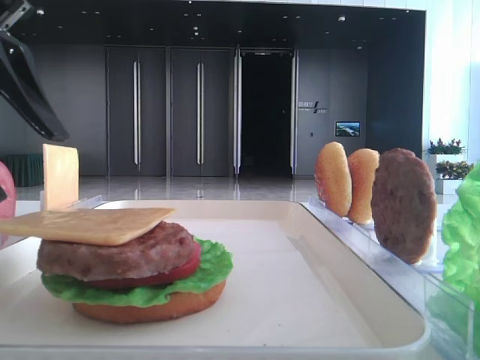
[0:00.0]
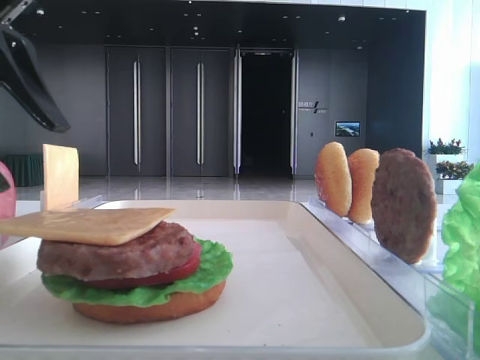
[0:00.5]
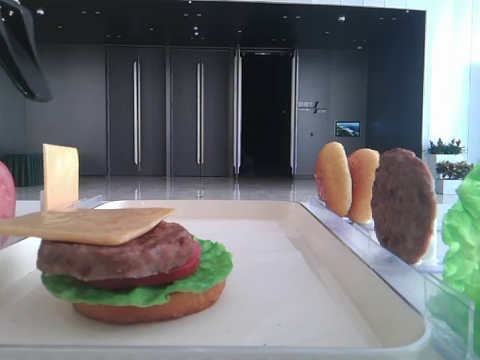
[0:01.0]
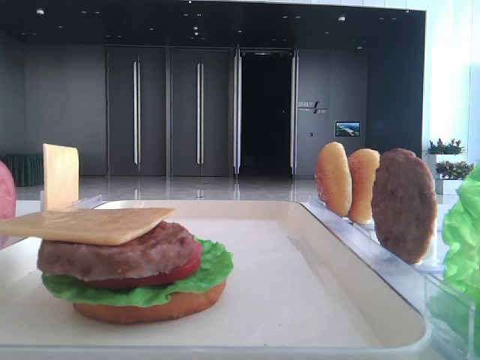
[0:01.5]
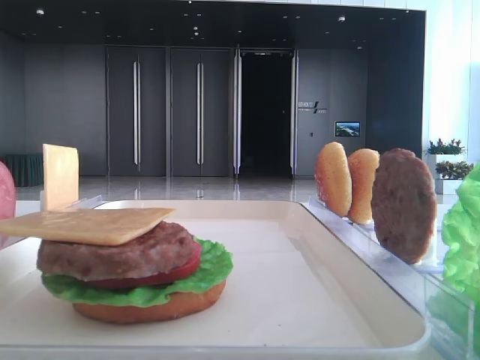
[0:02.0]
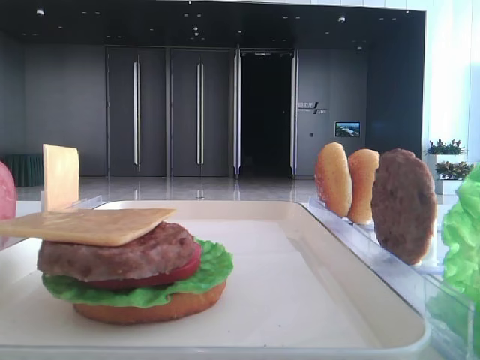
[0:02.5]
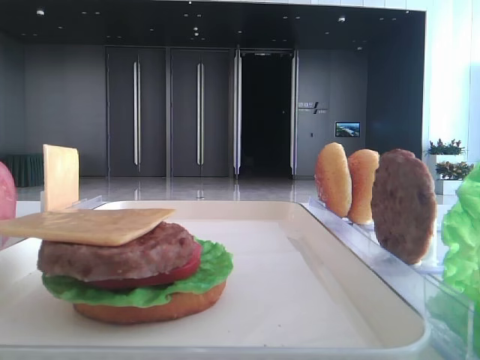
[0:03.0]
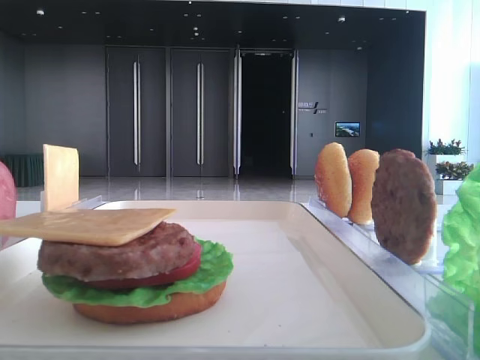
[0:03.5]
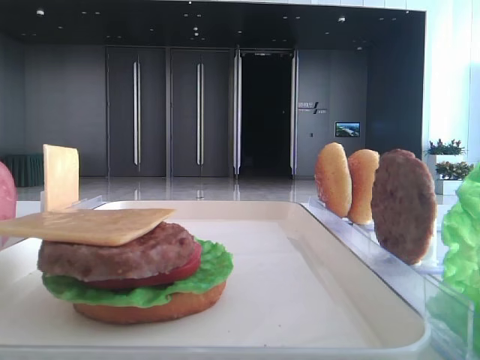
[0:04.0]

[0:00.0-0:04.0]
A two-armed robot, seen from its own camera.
0:00.0 to 0:02.0: The left gripper moves upward and to the left, about 20 cm.

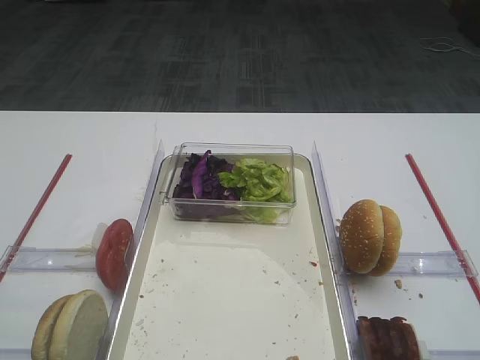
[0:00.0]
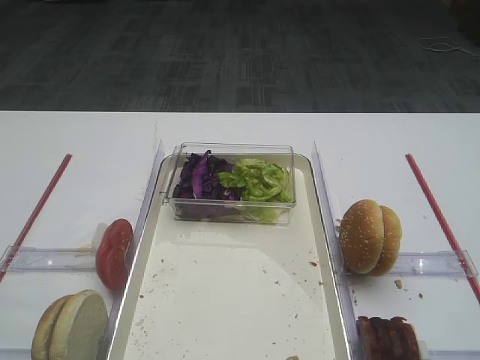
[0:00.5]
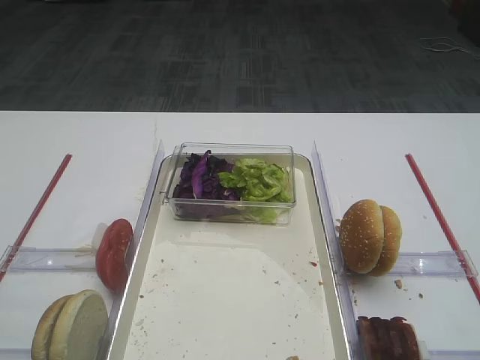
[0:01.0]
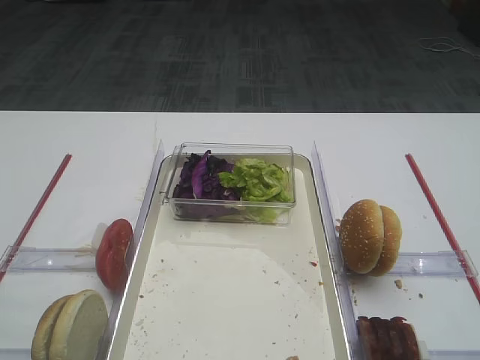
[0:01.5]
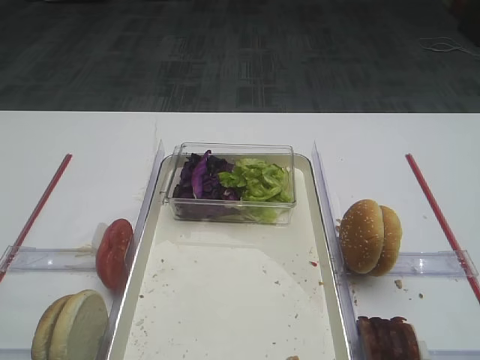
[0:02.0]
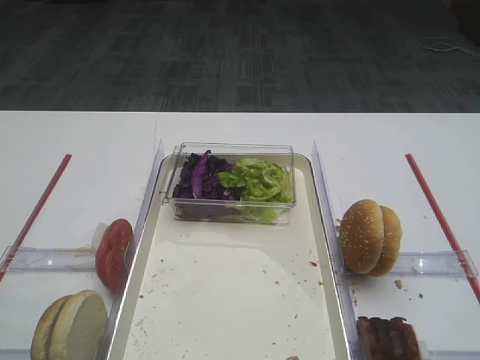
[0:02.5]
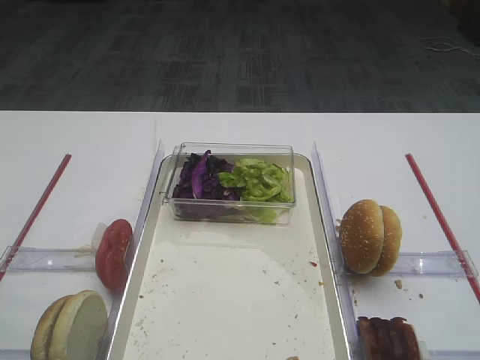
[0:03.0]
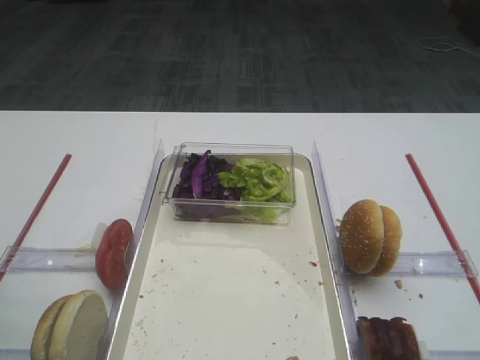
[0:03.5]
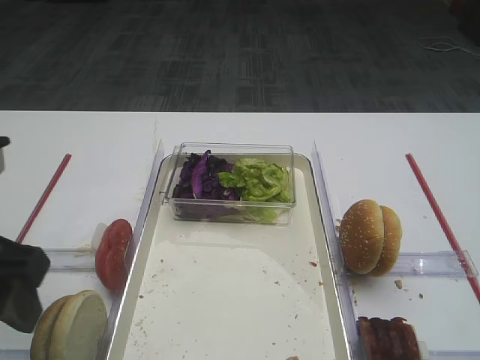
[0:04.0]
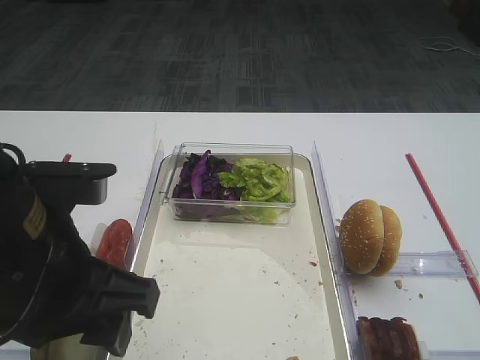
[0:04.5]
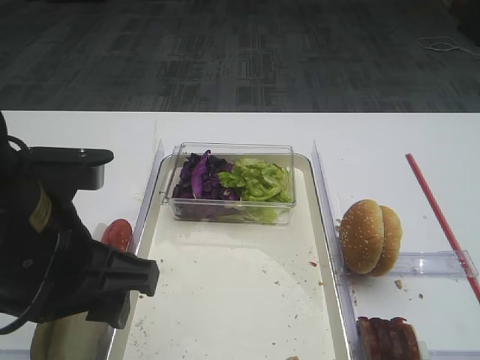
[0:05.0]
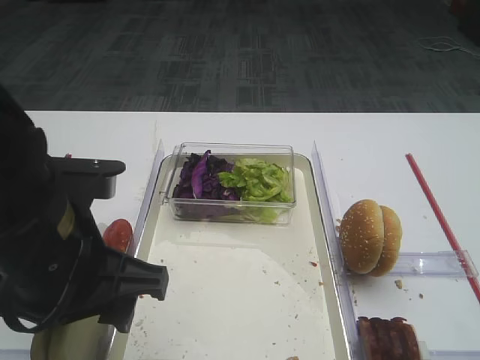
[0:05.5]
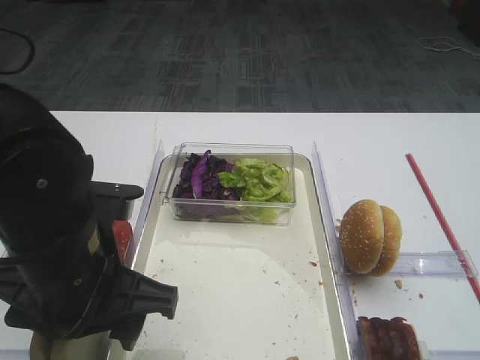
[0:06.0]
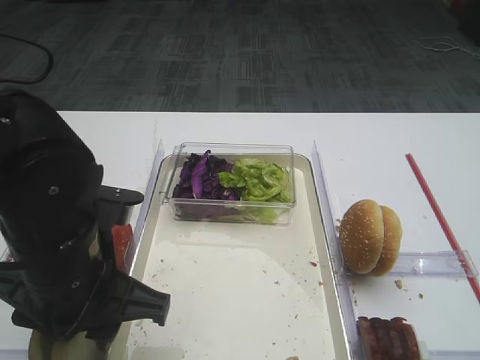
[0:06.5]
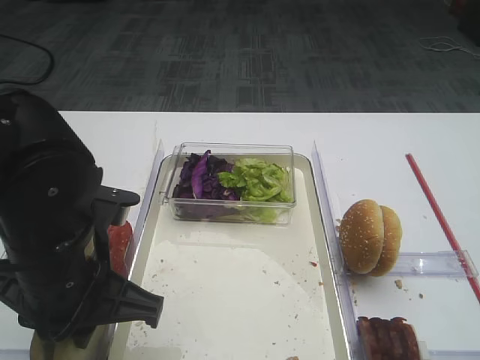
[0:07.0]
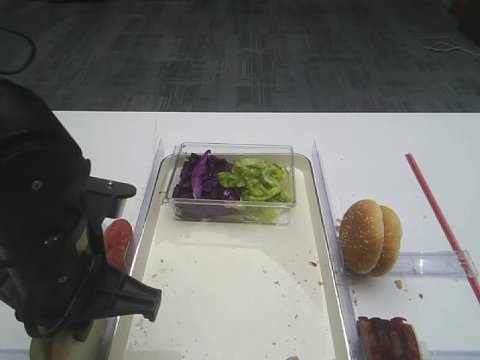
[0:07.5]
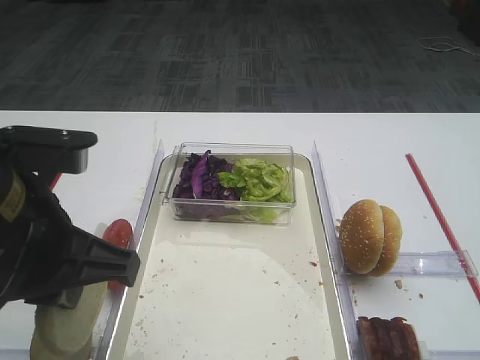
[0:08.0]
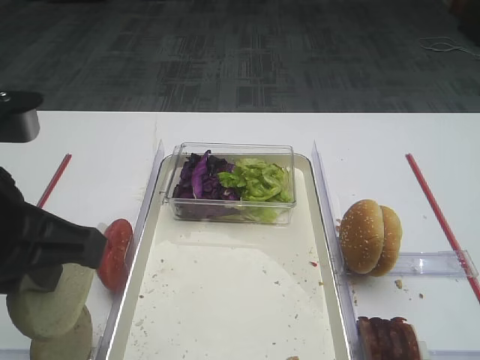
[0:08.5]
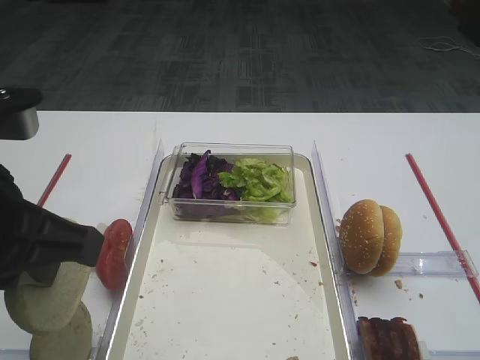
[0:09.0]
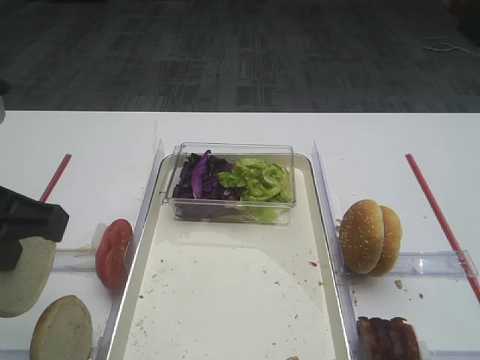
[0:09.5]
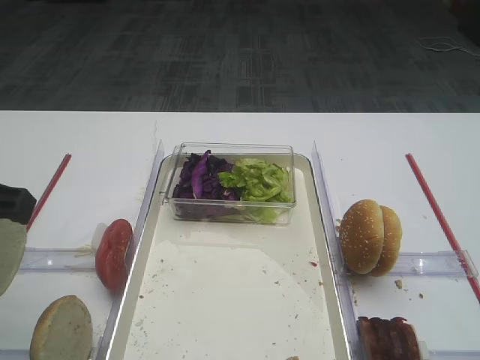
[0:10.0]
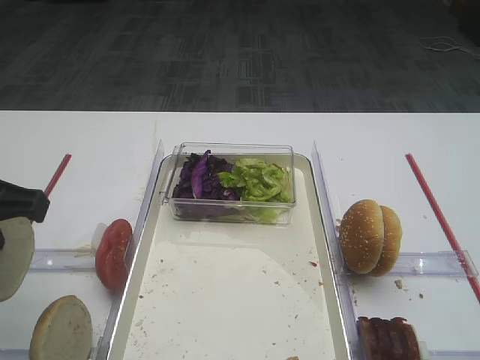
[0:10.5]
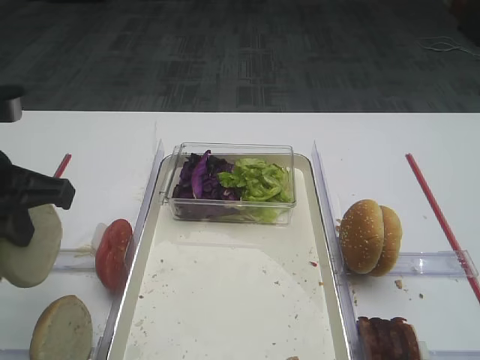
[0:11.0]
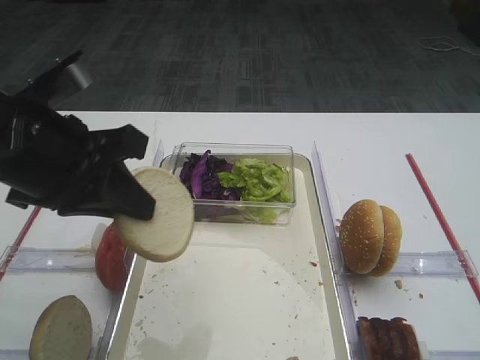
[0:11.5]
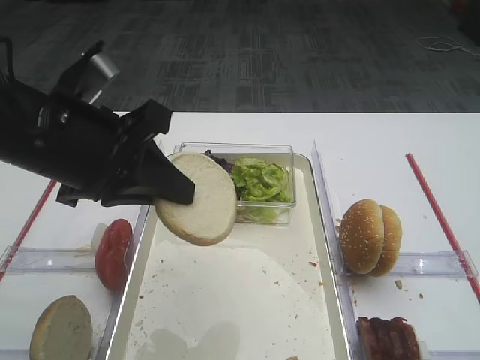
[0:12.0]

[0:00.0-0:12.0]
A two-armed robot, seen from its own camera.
Step, 0:00.0 to 0:08.5: Pick up the bread slice with the left gripper.
0:02.0 to 0:04.0: The left gripper heads forward and to the right, covering about 15 cm.
0:04.0 to 0:06.0: The left gripper goes roughly 10 cm to the right and downward.
0:06.0 to 0:08.0: The left gripper goes approximately 5 cm upward, and closes.
0:08.0 to 0:10.0: The left gripper heads to the left, covering approximately 10 cm.
0:10.0 to 0:12.0: The left gripper travels to the right and forward by roughly 10 cm.

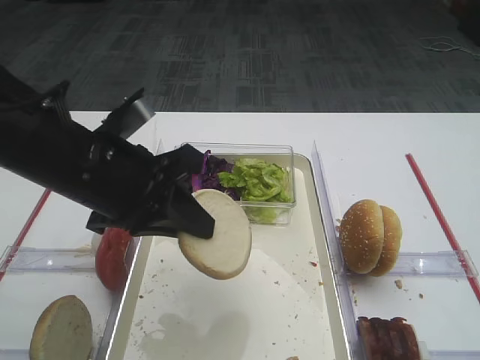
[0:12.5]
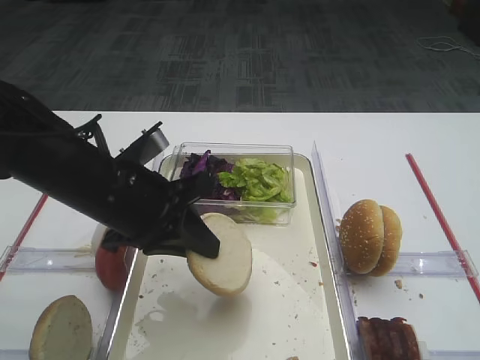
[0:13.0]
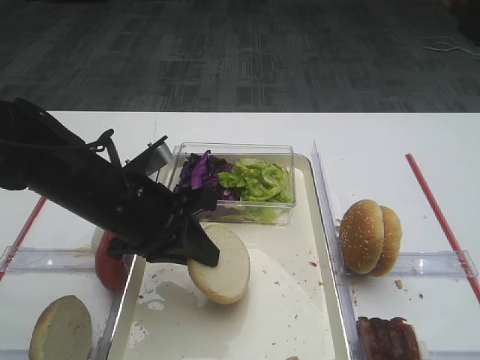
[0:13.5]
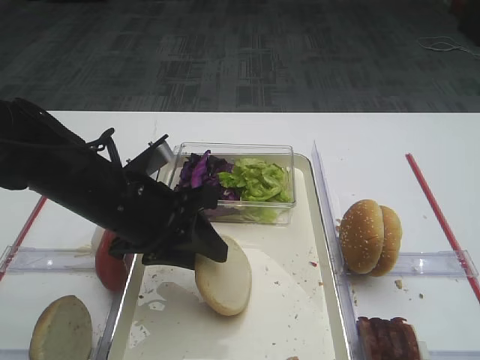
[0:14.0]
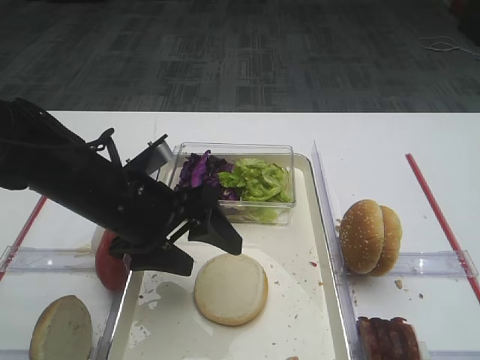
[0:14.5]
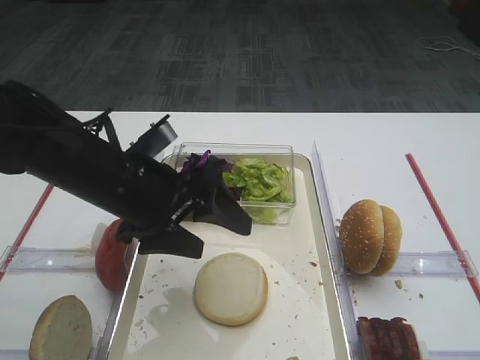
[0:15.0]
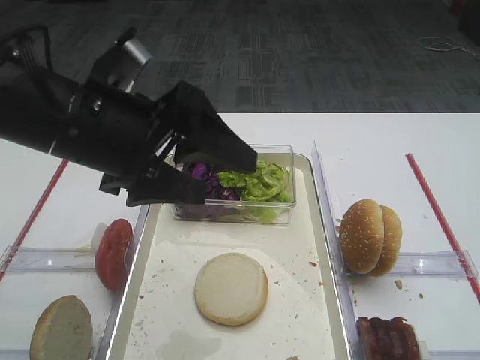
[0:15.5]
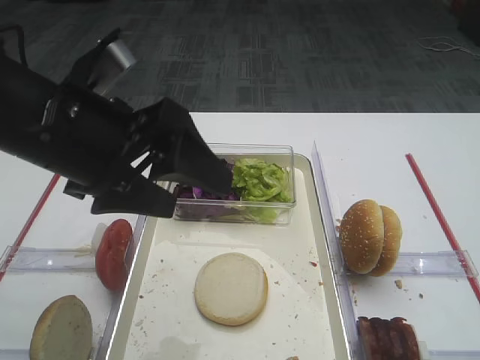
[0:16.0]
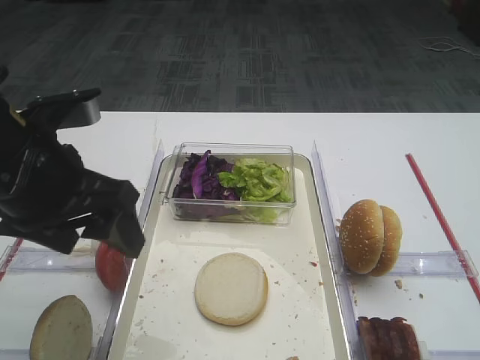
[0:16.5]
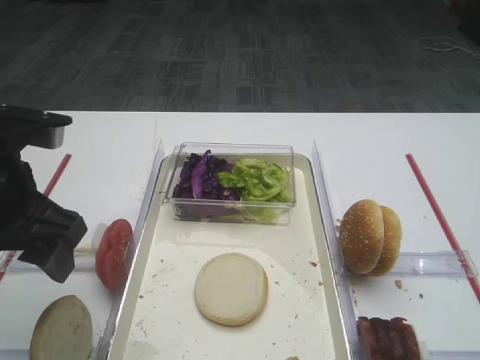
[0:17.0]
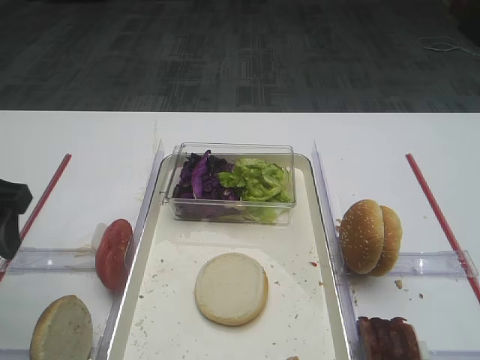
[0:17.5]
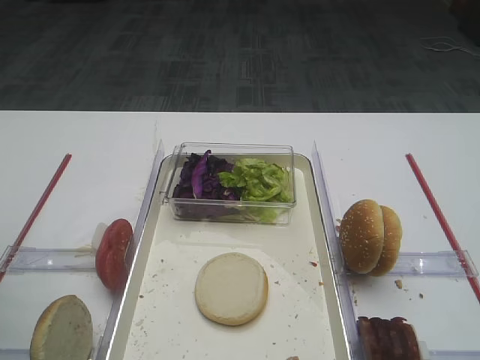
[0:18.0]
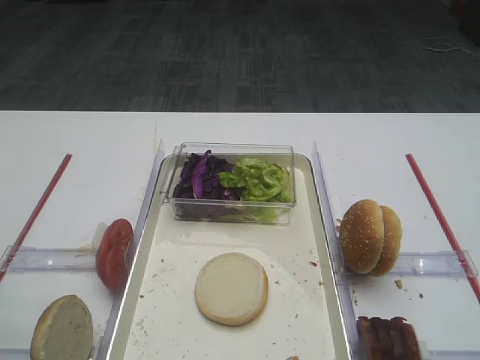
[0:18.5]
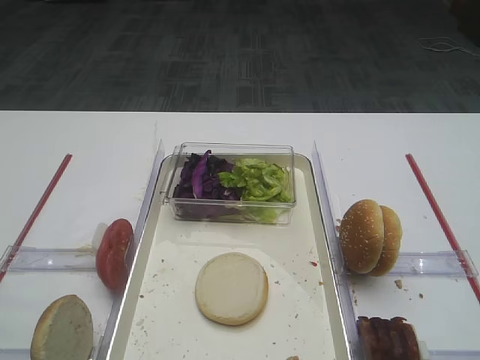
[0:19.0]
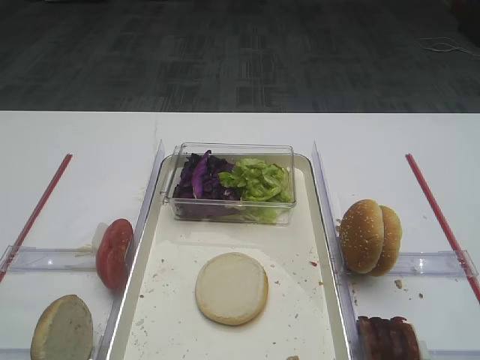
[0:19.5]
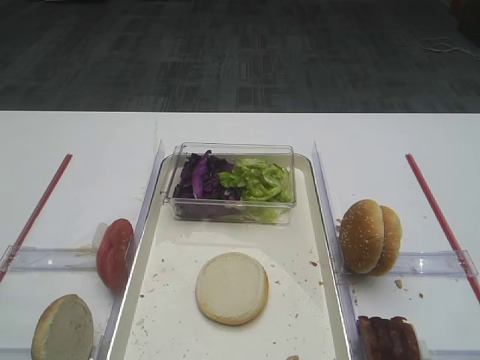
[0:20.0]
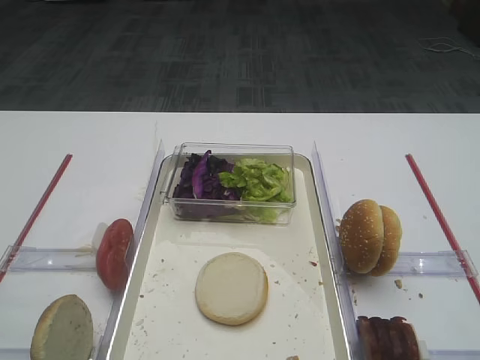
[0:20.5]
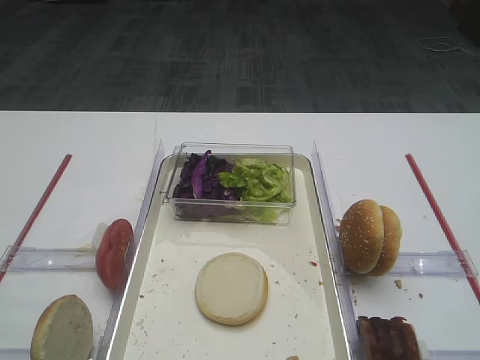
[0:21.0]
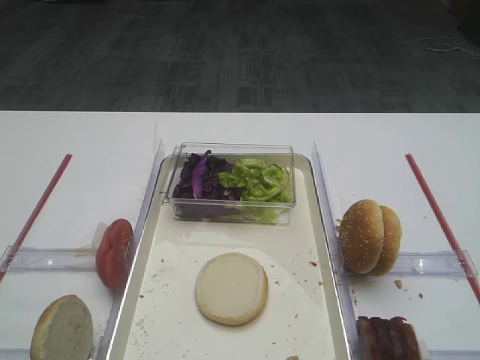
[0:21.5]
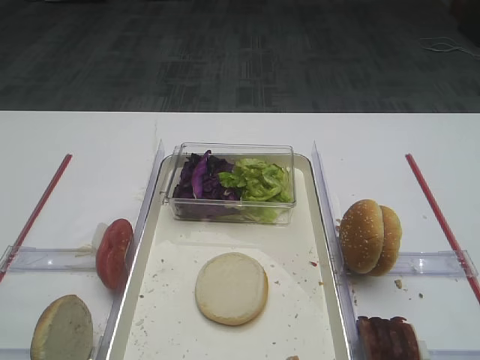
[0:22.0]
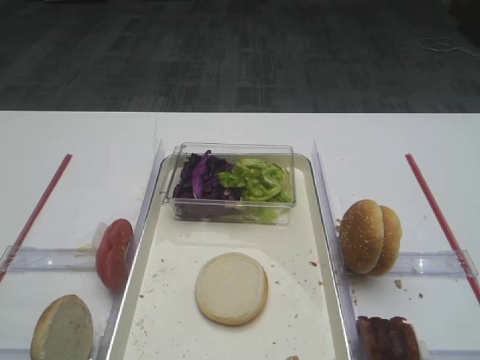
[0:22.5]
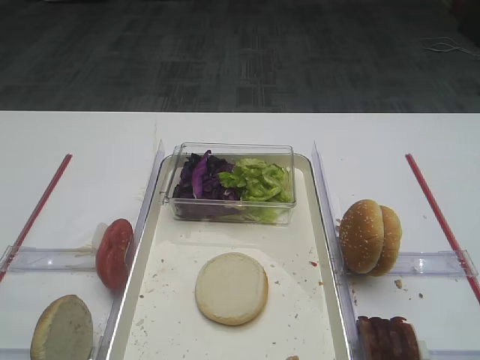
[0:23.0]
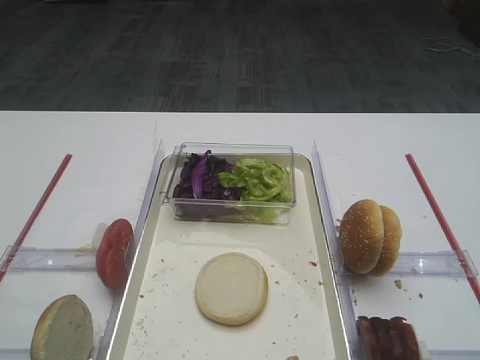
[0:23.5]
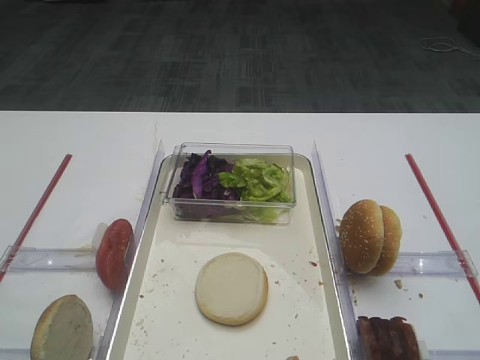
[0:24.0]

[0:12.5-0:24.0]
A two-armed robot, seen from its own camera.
Step, 0:12.5 to 0:14.5: Place the bread slice on the tray with the left gripper.
0:12.5 to 0:14.5: The left gripper heads downward, covering about 5 cm, and opens.
0:14.5 to 0:16.5: The left gripper moves upward and to the left, roughly 10 cm.
0:16.5 to 0:18.5: The left gripper travels to the left and backward by about 15 cm.
0:20.0 to 0:24.0: The two grippers keep their place.
